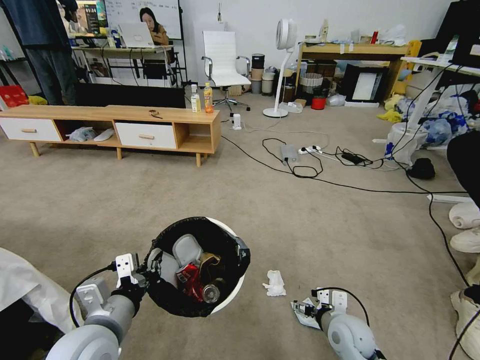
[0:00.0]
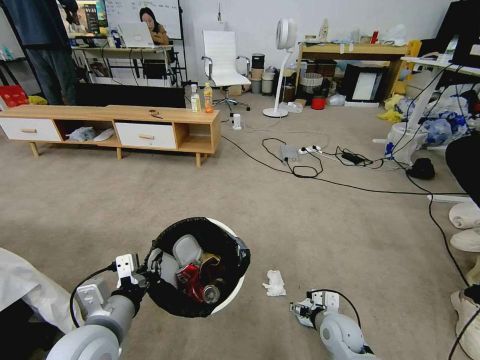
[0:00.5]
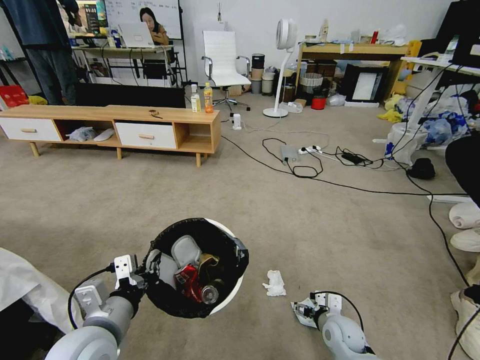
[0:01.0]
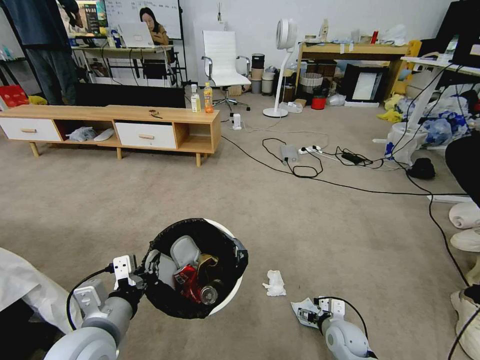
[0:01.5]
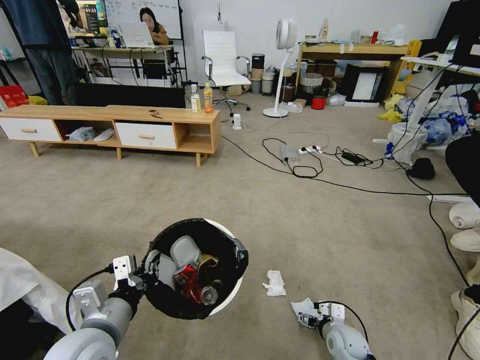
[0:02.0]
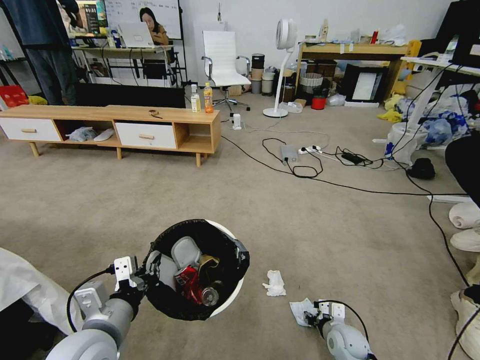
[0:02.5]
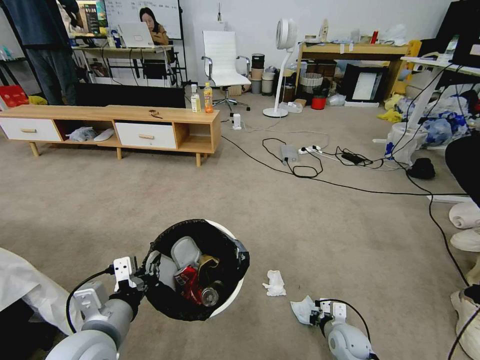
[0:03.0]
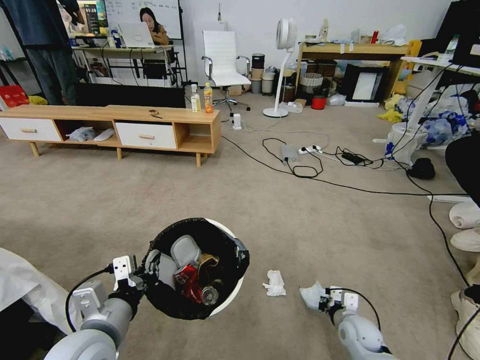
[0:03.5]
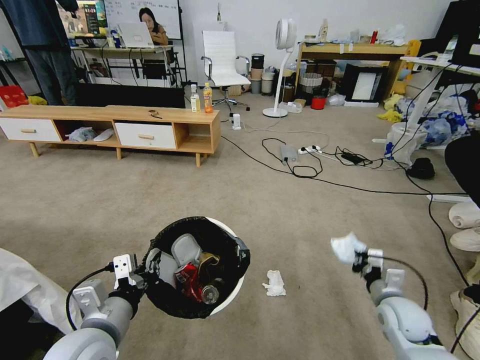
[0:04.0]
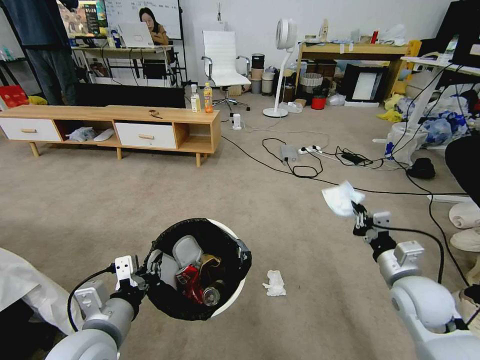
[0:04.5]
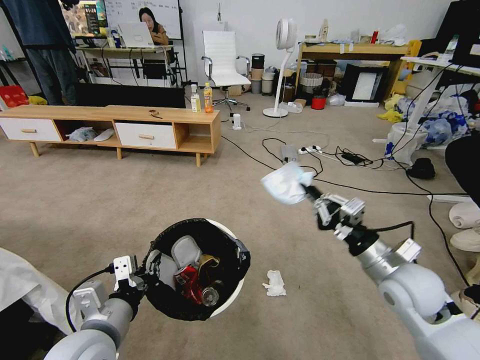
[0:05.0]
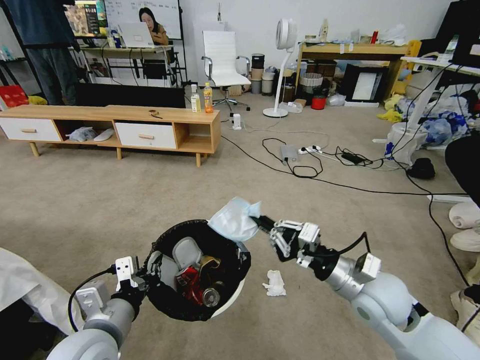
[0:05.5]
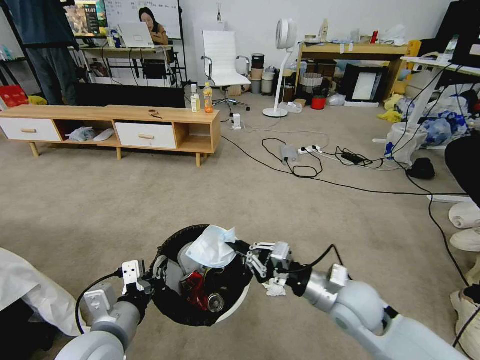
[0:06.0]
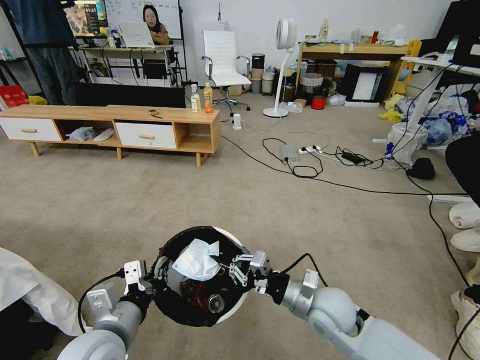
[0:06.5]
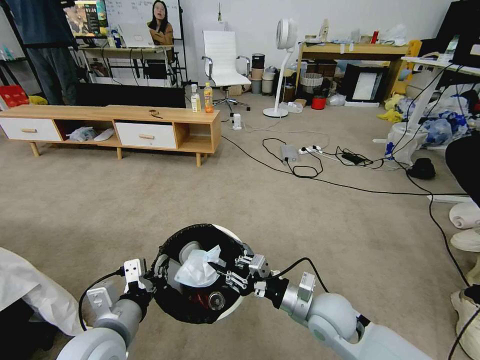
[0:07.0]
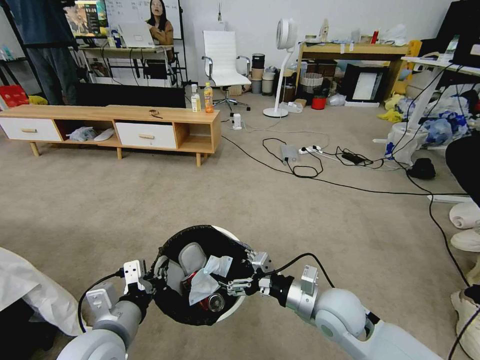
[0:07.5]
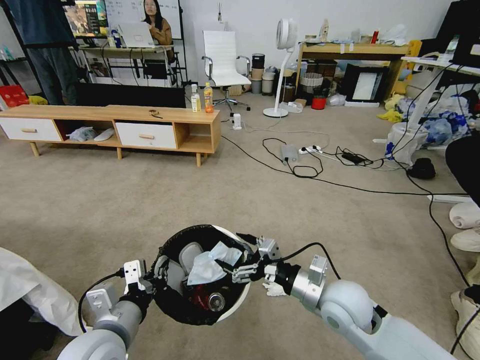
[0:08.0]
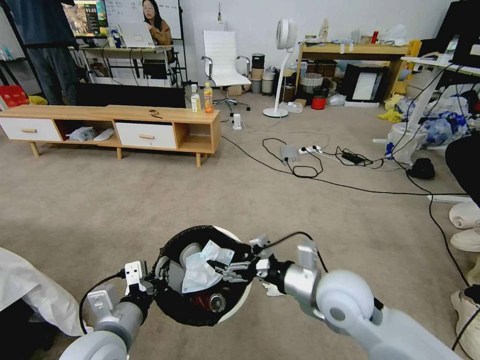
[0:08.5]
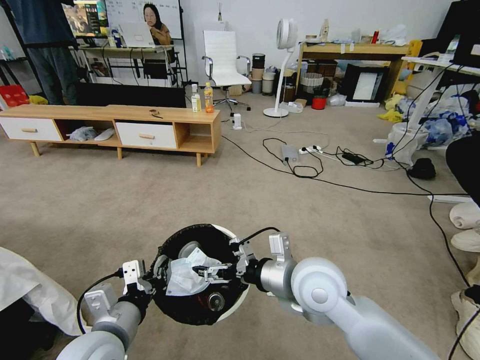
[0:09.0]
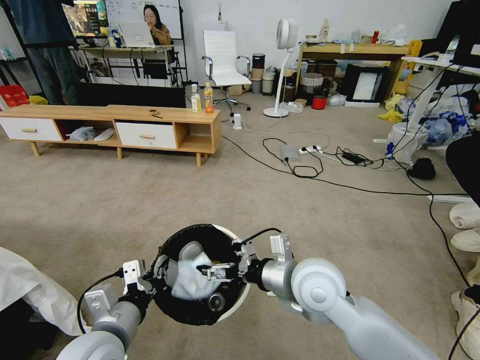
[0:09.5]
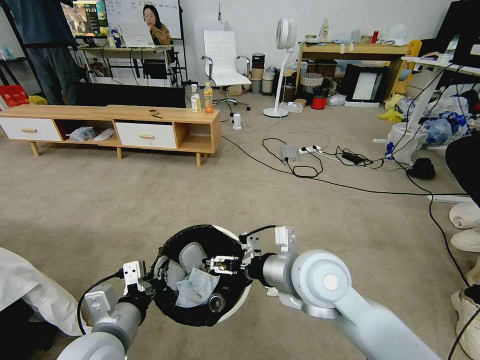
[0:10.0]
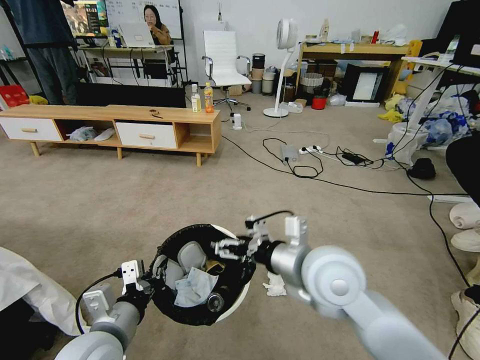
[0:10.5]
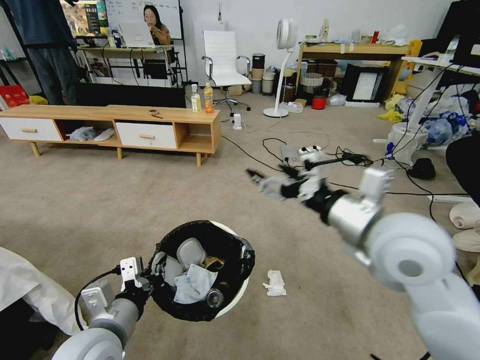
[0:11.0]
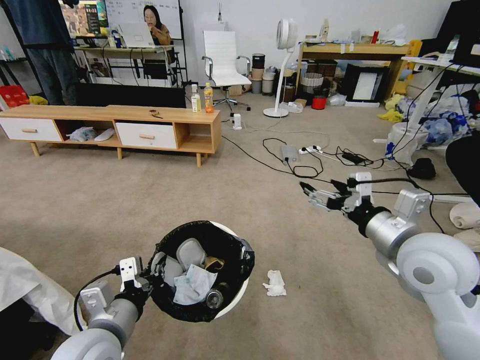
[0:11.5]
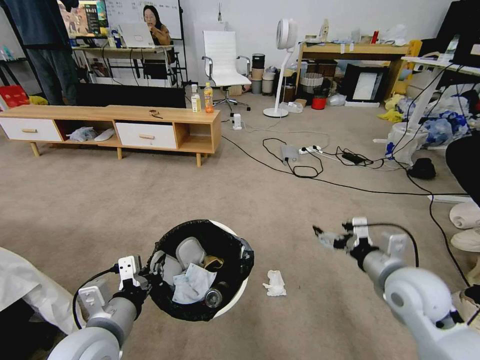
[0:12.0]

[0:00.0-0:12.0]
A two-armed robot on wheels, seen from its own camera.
Task of the whole recording: Pick up the trash bin and place the garbage on the floor into it.
0:00.0 to 0:02.0: The right gripper moves downward, some 10 cm.
0:02.0 to 0:04.0: The right gripper moves upward and to the right, about 15 cm, and closes up.
0:04.0 to 0:06.0: The right gripper heads to the left and upward, covering approximately 20 cm.
0:06.0 to 0:08.0: The right gripper opens.
0:08.0 to 0:10.0: The right gripper goes roughly 15 cm upward and to the left.
0:10.0 to 0:12.0: The right gripper moves to the right, about 20 cm.

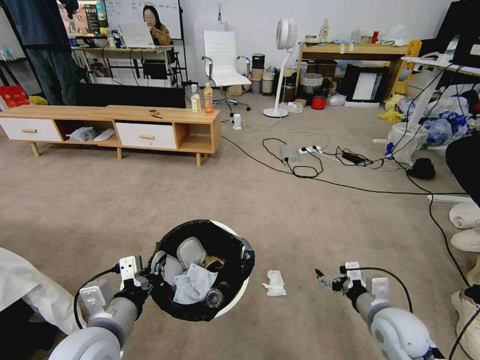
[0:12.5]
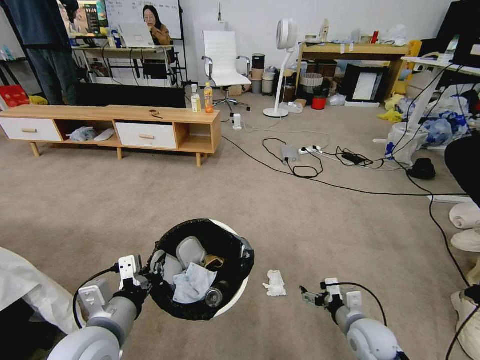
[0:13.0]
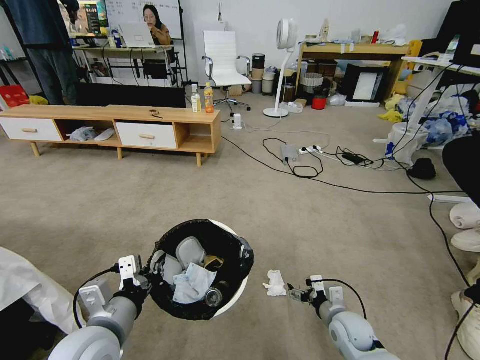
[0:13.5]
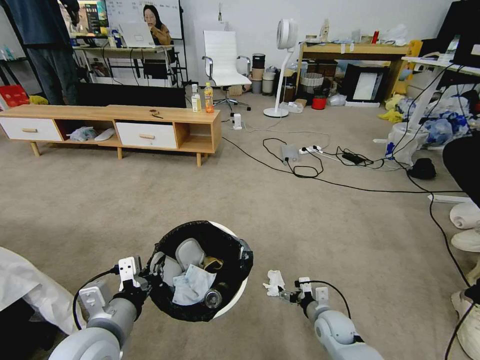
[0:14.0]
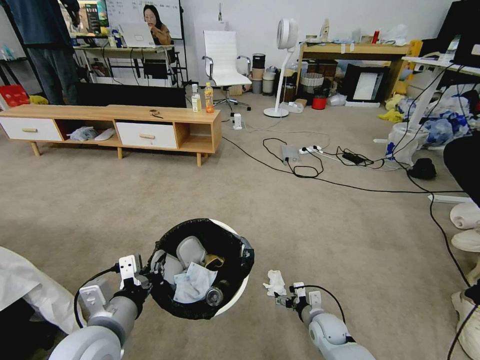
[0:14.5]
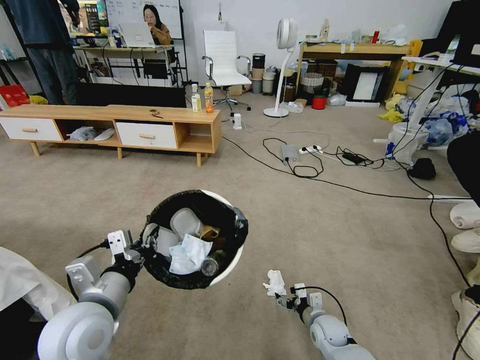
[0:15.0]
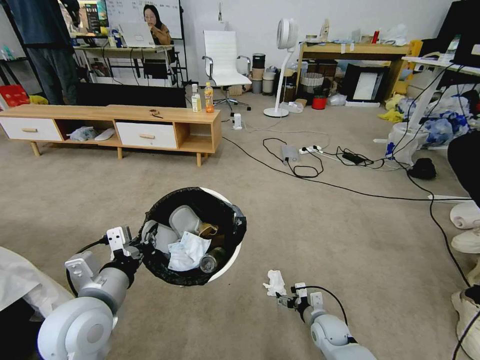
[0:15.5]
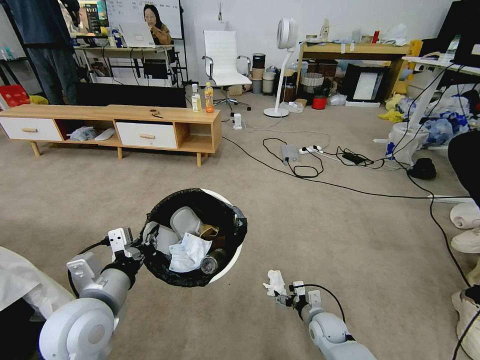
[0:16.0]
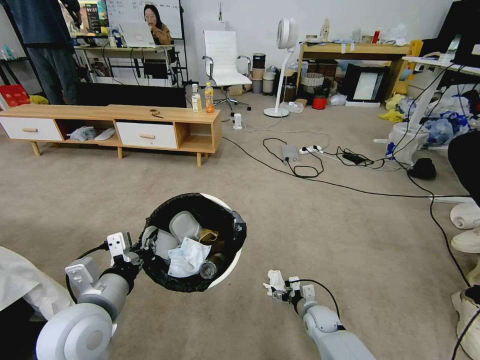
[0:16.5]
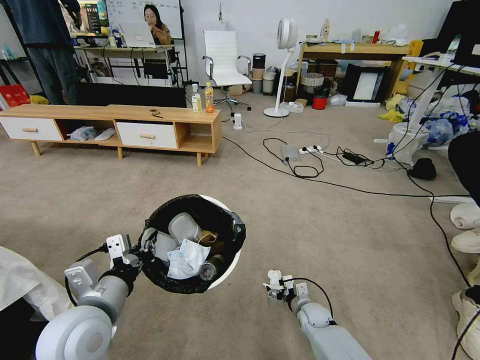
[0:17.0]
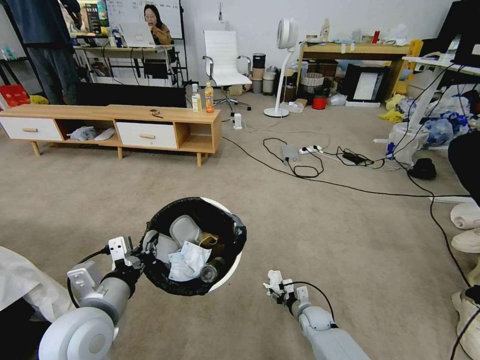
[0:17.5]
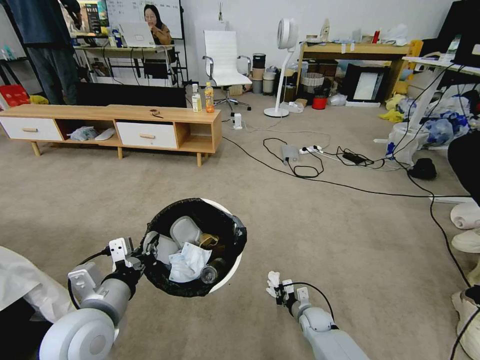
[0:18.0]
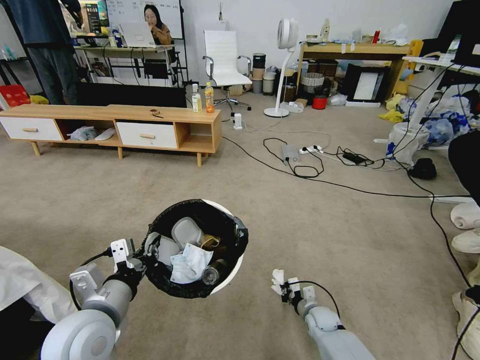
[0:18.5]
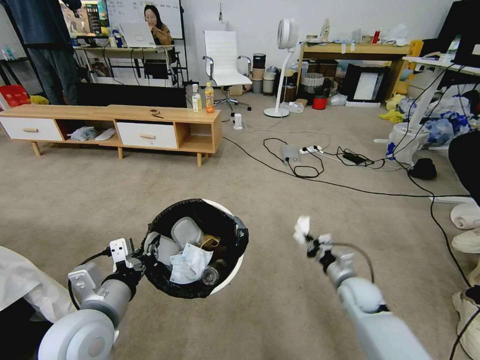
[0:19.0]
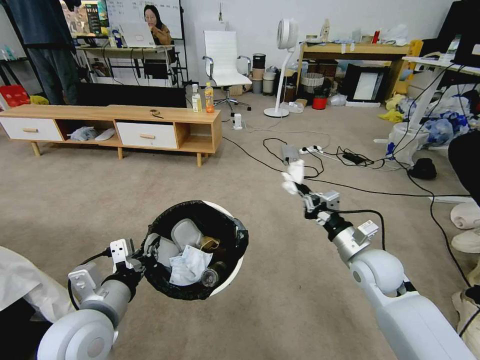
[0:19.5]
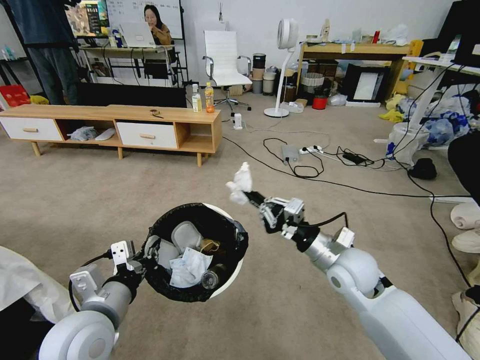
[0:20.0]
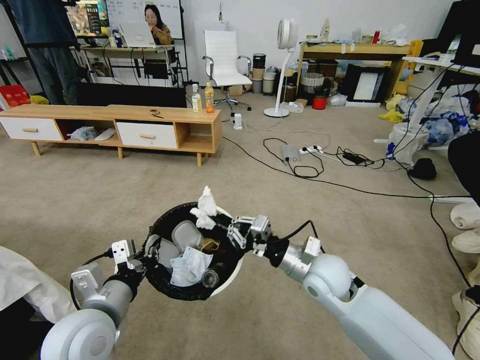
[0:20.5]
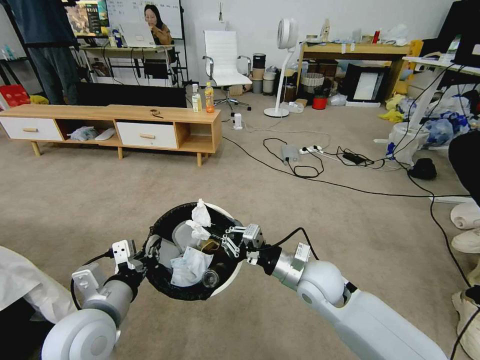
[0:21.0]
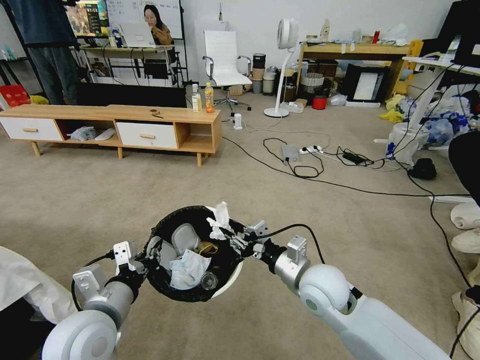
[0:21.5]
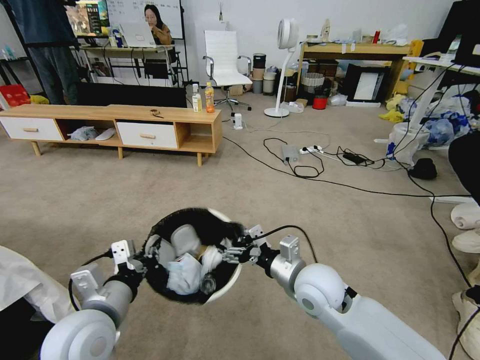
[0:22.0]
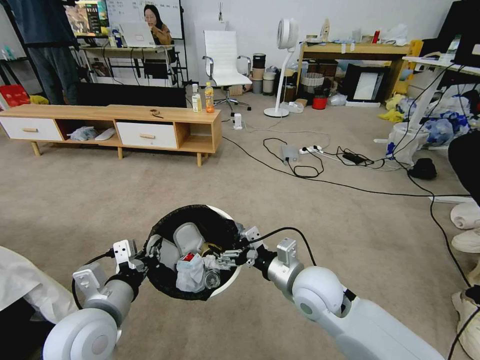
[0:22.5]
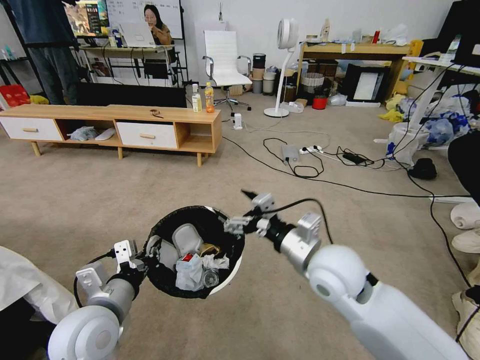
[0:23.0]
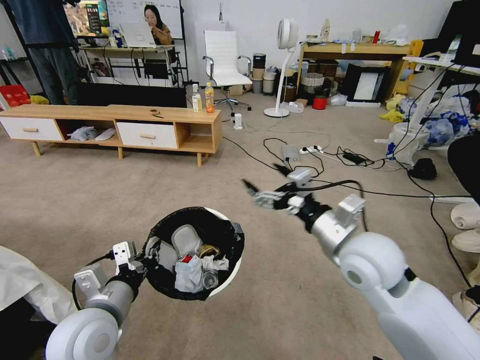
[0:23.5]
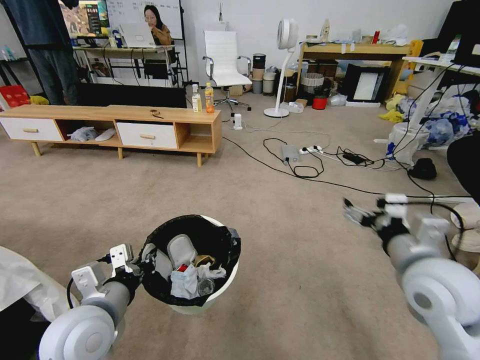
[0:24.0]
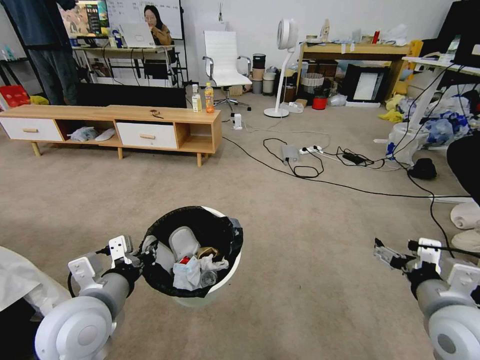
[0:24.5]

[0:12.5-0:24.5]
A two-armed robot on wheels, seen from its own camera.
Task of the whole recording: Pick up the trash bin and place the garbage on the floor into it.
0:12.5 to 0:14.5: The right gripper travels downward and to the left by about 20 cm.
0:14.5 to 0:16.5: There are only small adjustments of the grippers.
0:16.5 to 0:18.5: The right gripper closes its fingers.
0:18.5 to 0:20.5: The right gripper moves upward, approximately 30 cm.
0:20.5 to 0:22.5: The right gripper opens.
0:22.5 to 0:24.5: The right gripper travels to the right and backward by about 20 cm.
